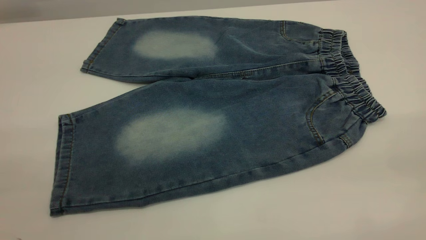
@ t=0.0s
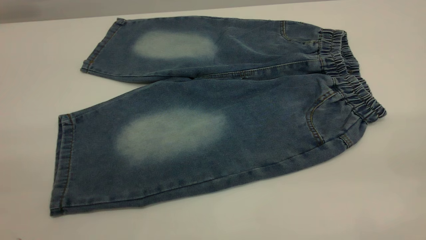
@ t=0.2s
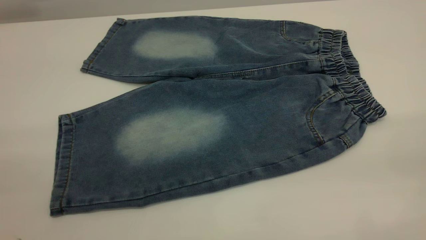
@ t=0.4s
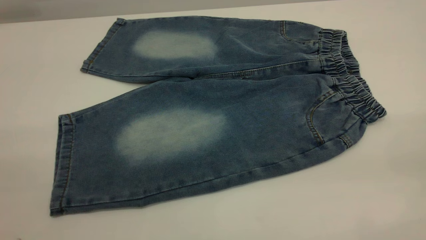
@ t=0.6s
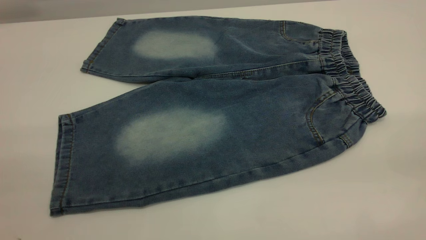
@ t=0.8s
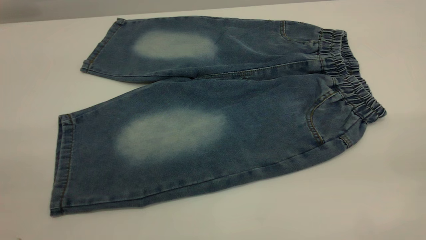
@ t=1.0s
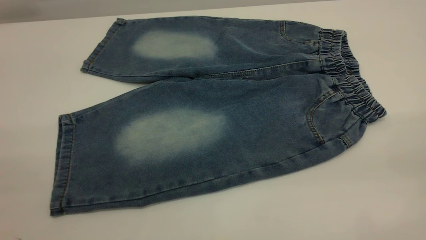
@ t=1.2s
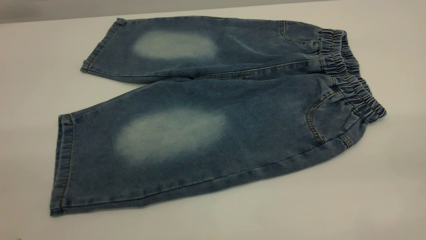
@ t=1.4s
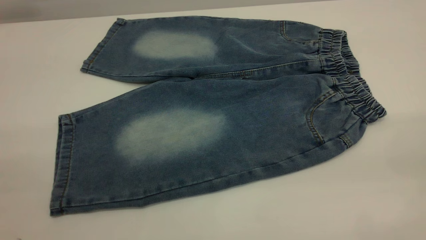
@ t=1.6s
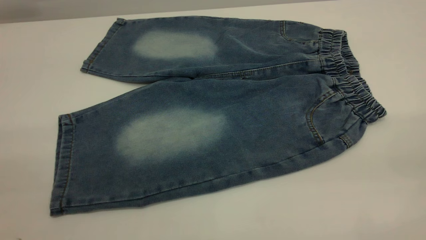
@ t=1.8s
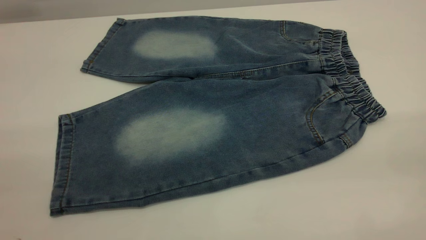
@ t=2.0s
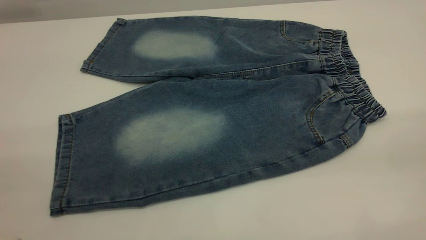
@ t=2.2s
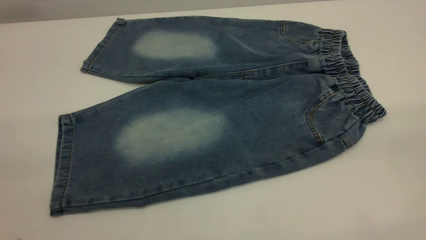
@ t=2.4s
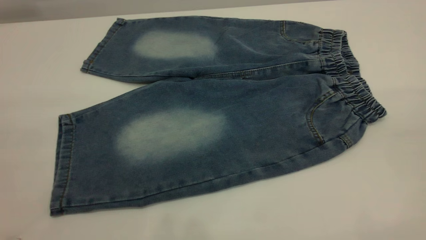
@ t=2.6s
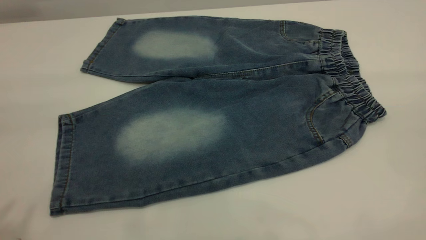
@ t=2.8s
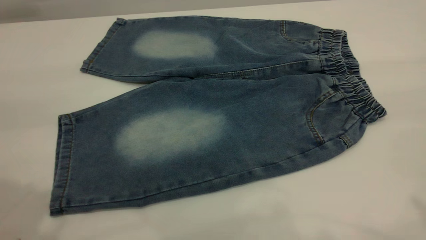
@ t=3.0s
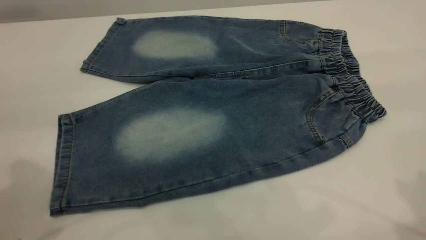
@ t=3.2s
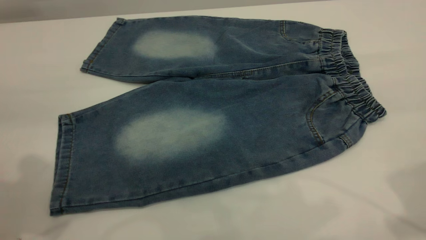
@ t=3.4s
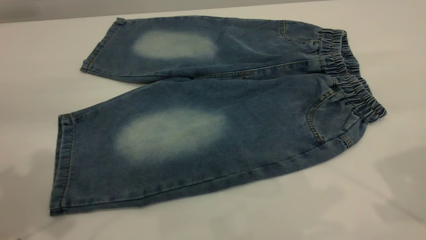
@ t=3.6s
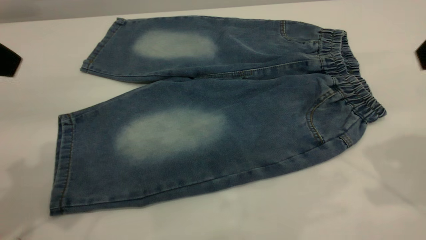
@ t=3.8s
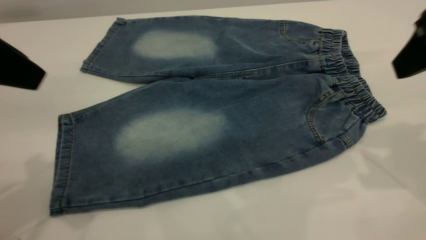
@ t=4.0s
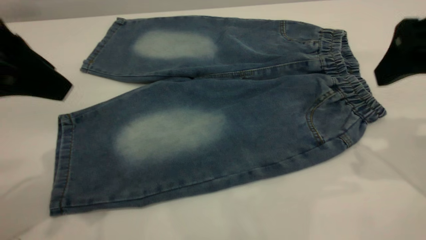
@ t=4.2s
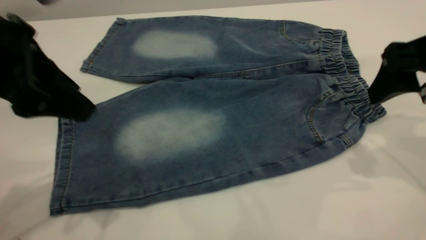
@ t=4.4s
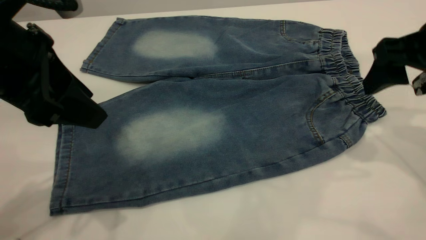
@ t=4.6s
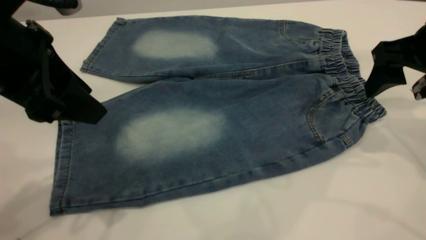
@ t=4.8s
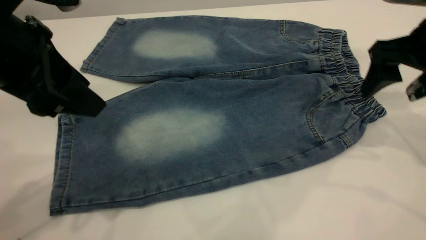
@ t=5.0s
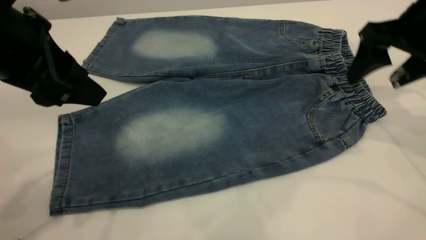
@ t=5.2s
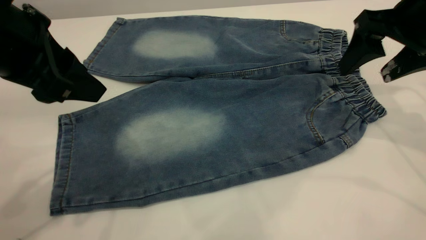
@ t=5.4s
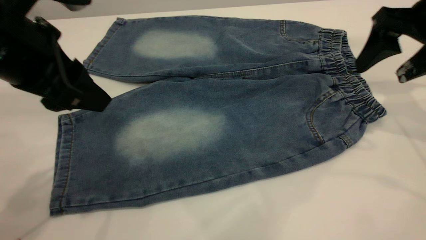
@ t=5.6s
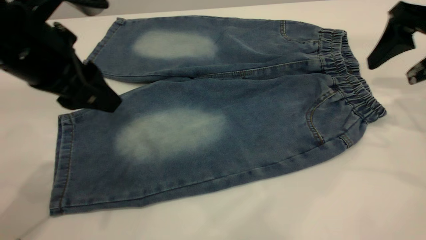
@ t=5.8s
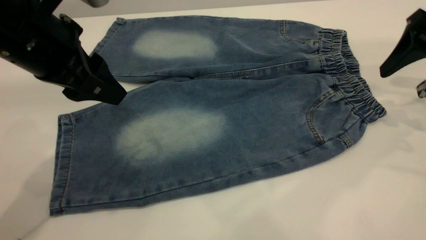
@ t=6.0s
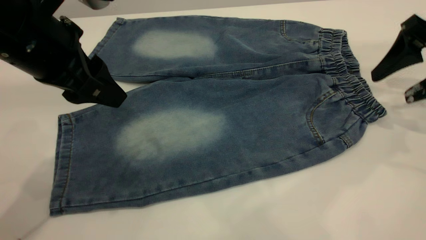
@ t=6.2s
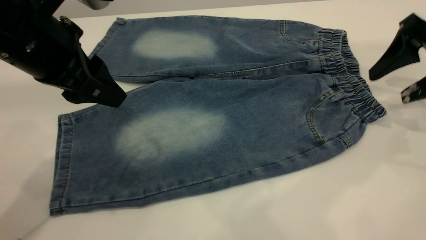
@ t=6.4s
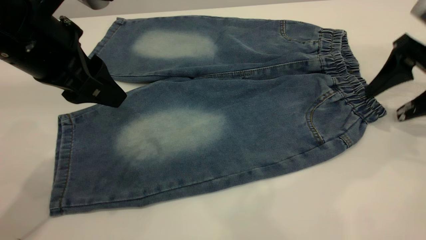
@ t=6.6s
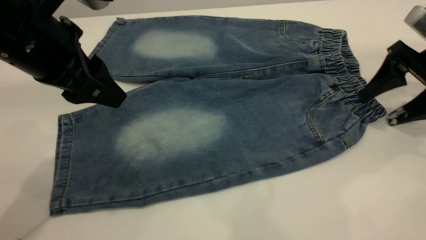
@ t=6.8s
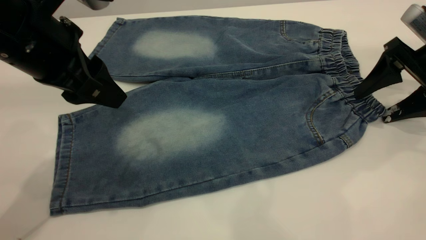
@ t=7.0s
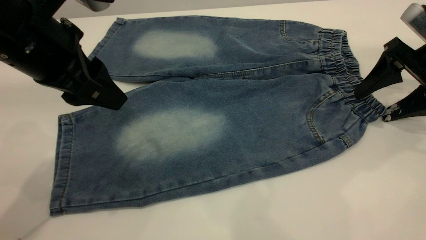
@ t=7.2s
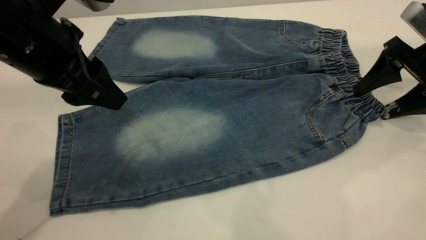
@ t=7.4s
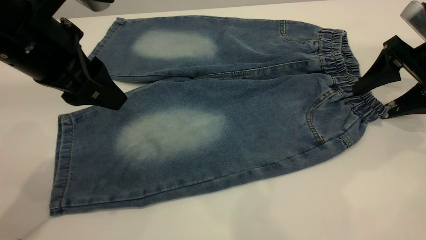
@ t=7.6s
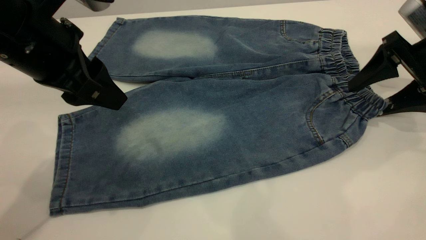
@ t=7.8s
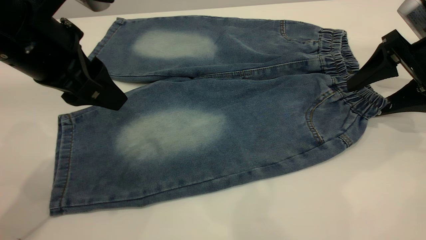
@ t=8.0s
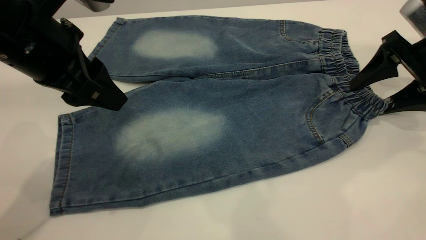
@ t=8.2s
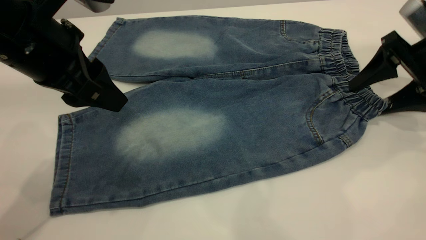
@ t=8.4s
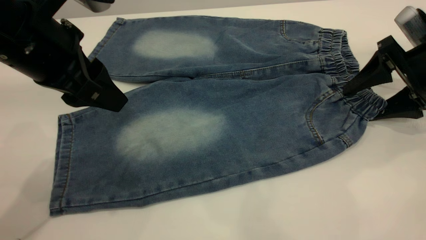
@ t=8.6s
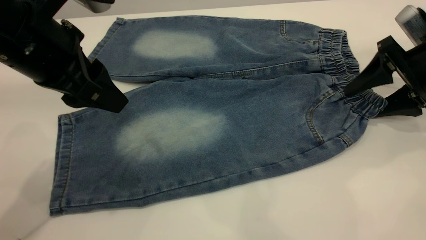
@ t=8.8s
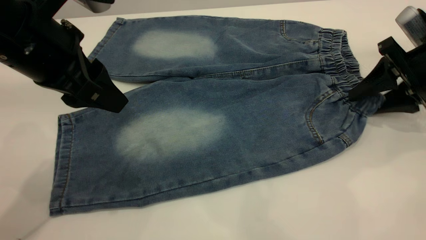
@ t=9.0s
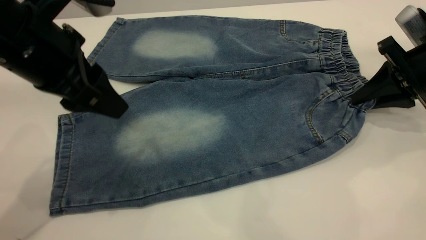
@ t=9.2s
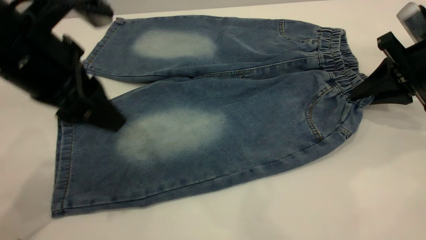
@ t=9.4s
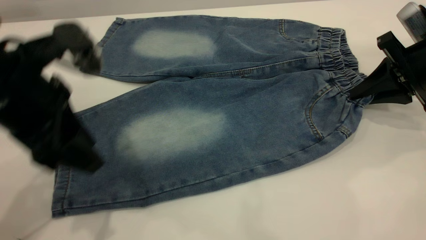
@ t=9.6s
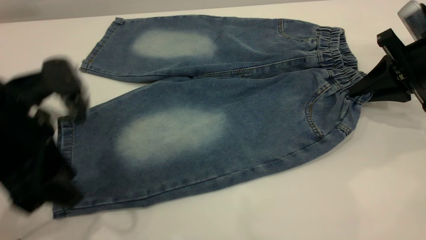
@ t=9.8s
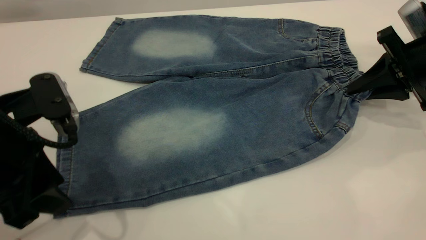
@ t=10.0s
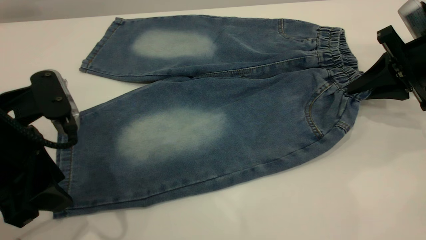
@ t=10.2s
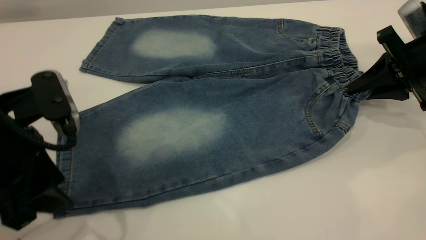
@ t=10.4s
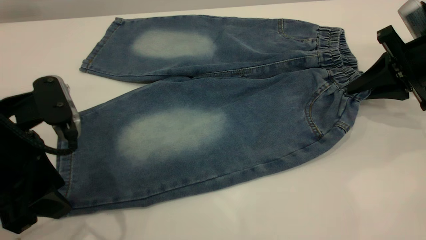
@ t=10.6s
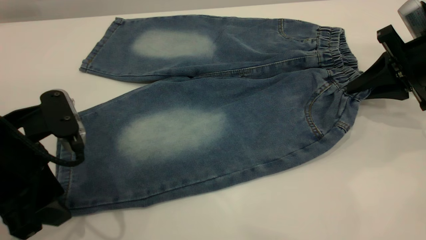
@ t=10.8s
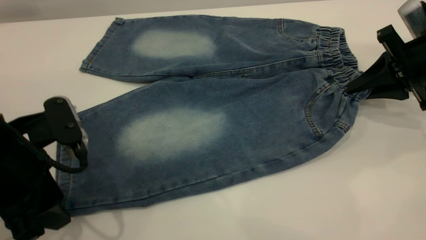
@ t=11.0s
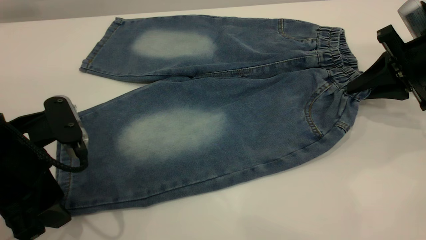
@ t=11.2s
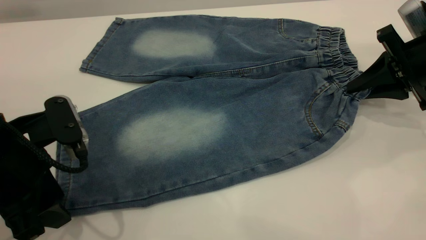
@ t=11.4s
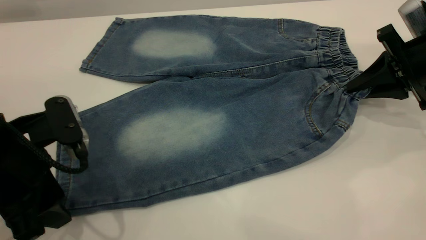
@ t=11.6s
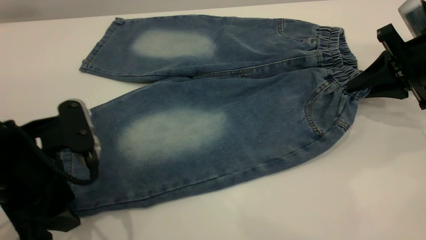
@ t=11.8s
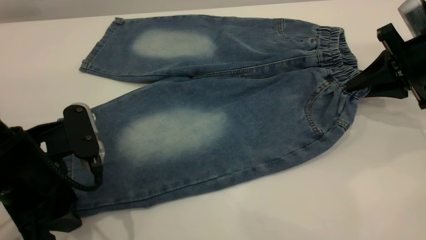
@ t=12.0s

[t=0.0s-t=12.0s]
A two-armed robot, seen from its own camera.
t=0.0s to t=1.6s: The two grippers keep their place.
t=3.0s to t=4.4s: The left gripper heads downward, forward and to the right, covering roughly 15 cm, and opens up; the right gripper shifts some 20 cm downward and forward, and opens its fingers.
t=4.4s to t=6.0s: The left gripper shifts by roughly 5 cm; the right gripper travels to the right and forward by some 10 cm.
t=6.0s to t=7.6s: The grippers move only a little.
t=7.6s to t=9.0s: The right gripper closes.
t=9.0s to t=10.4s: The left gripper travels backward and downward by approximately 10 cm.
t=10.4s to t=12.0s: The grippers stay close to where they were, moving slightly.

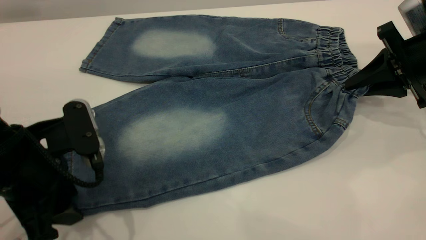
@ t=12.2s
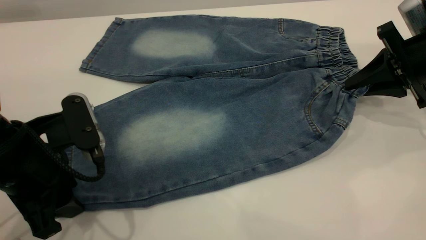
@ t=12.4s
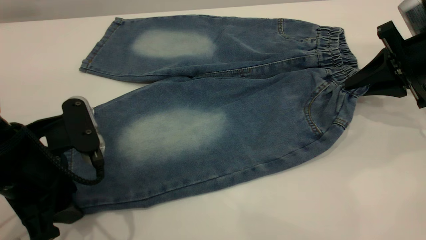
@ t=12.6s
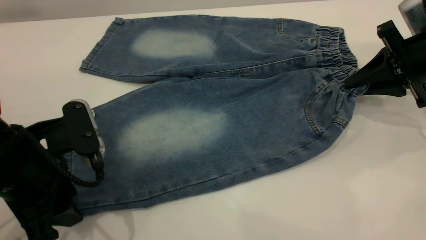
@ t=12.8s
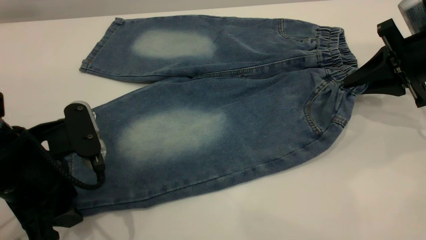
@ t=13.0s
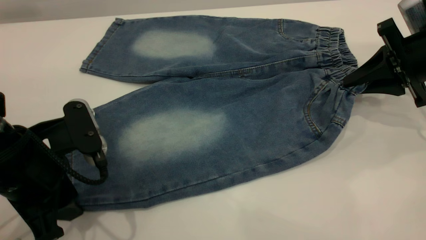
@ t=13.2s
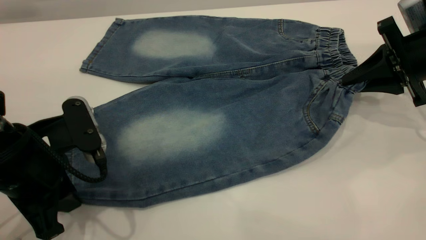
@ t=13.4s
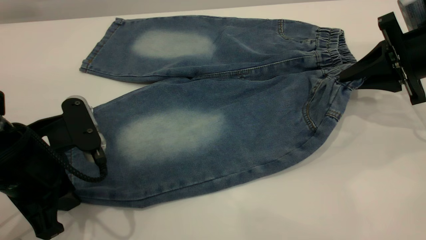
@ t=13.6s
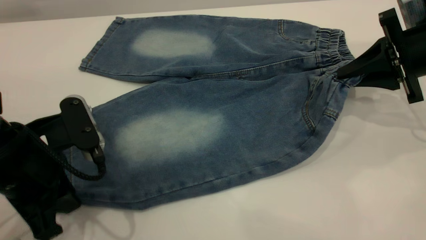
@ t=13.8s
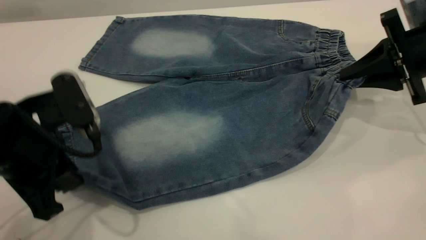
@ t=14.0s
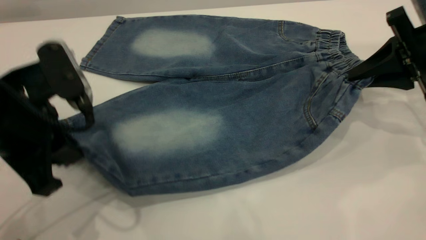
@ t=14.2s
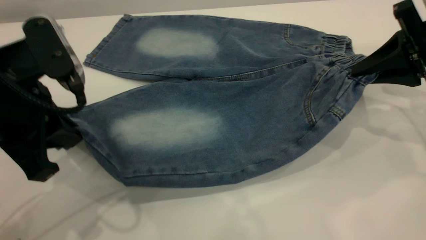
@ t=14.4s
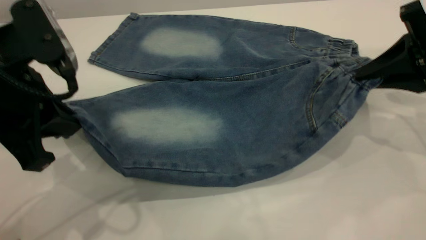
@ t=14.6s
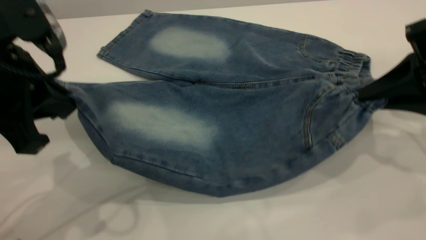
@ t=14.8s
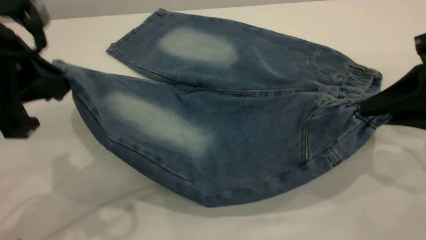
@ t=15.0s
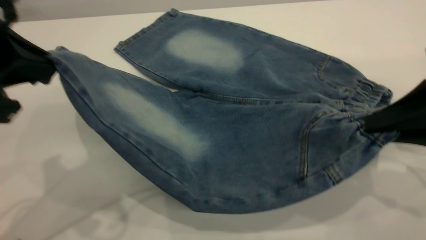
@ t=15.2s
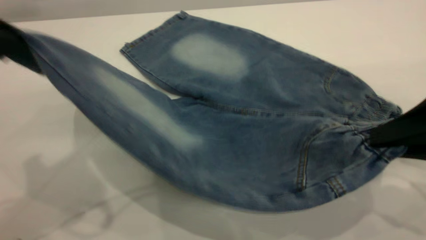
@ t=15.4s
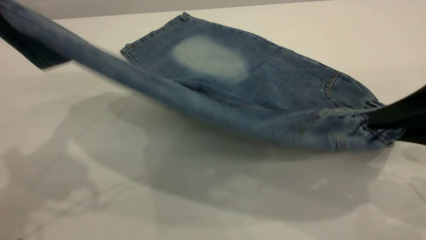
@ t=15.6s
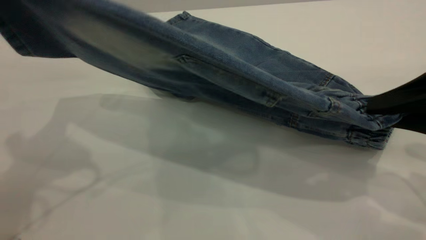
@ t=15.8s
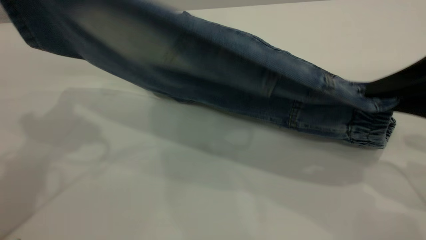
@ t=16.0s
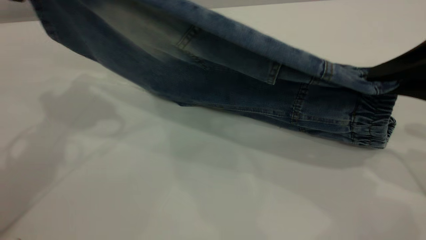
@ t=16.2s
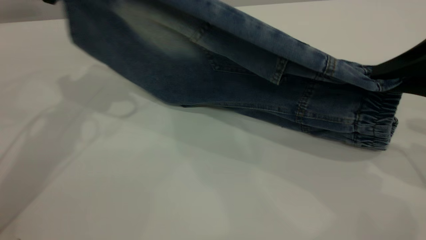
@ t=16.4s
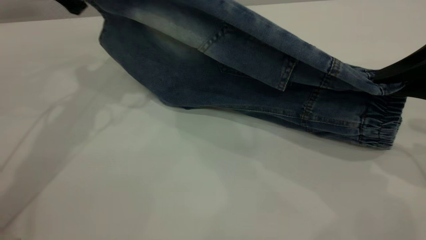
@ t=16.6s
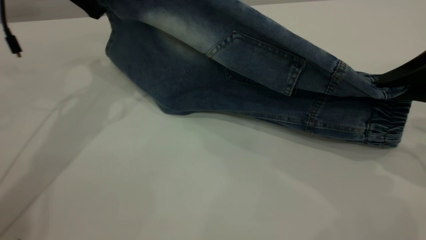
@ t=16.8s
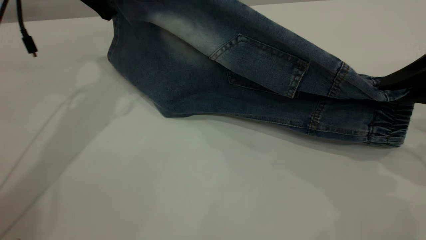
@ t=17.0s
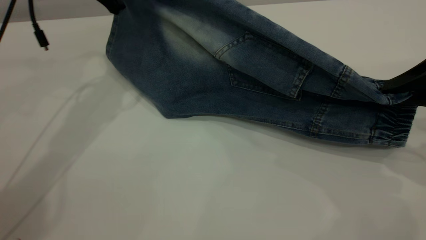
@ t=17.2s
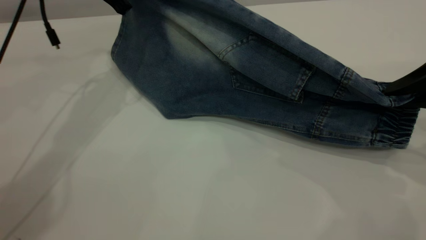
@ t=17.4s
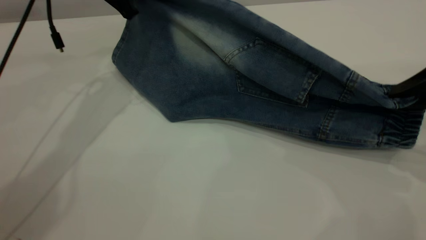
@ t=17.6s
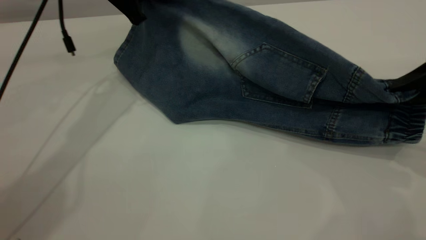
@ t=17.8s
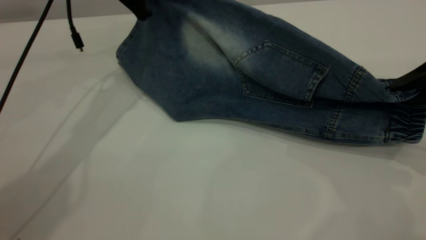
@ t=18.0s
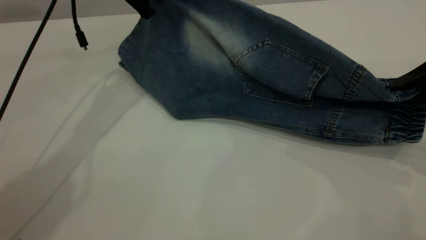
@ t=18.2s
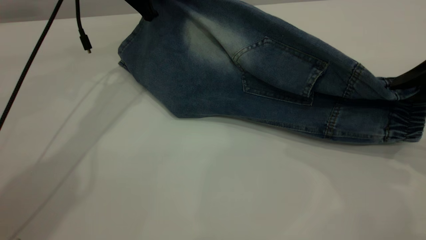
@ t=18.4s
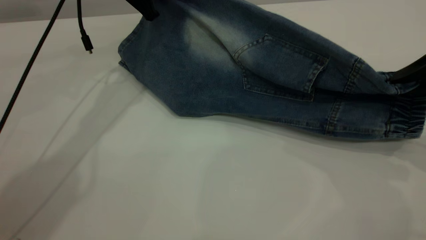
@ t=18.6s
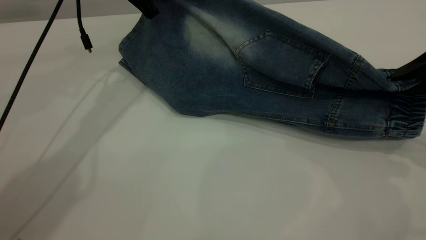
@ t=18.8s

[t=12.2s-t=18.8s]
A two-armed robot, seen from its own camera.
t=12.2s to t=13.8s: The left gripper closes.
t=13.8s to t=15.4s: The right gripper shifts some 15 cm backward, while the left gripper heads upward, covering roughly 15 cm.
t=15.4s to t=17.2s: The right gripper moves some 5 cm. Meanwhile the left gripper is displaced forward by some 25 cm.
t=17.2s to t=18.8s: The left gripper changes place by roughly 5 cm.
